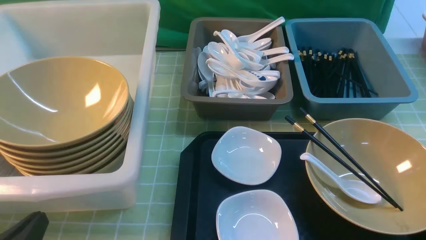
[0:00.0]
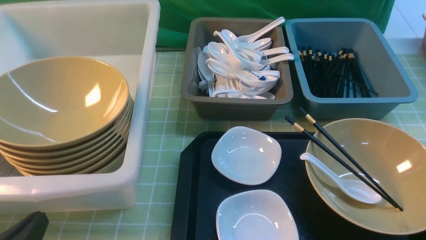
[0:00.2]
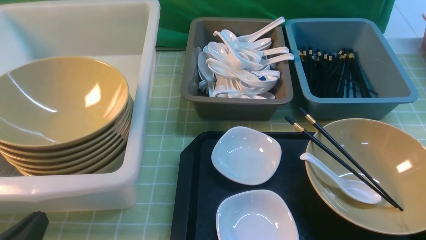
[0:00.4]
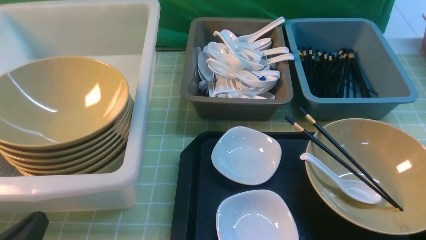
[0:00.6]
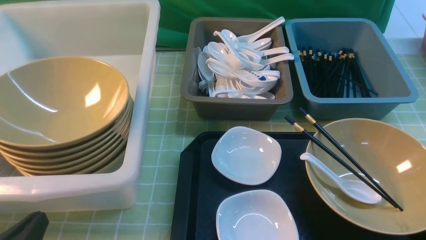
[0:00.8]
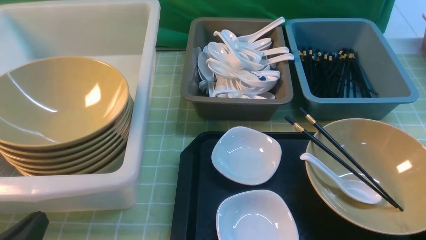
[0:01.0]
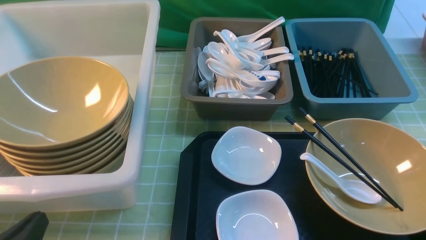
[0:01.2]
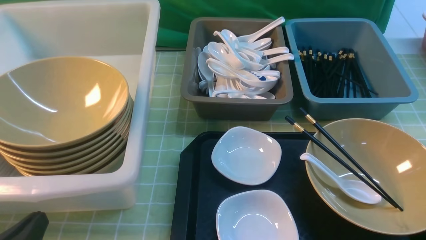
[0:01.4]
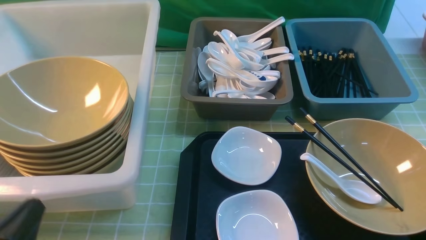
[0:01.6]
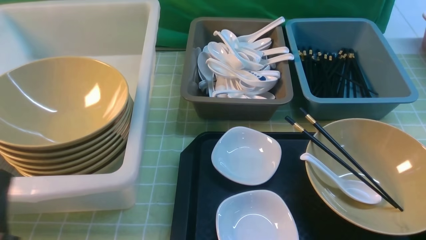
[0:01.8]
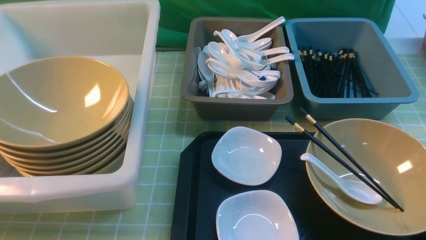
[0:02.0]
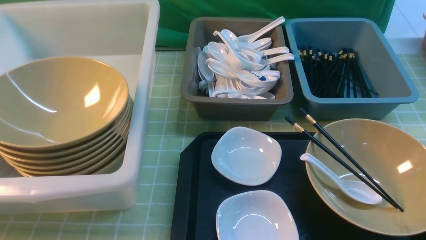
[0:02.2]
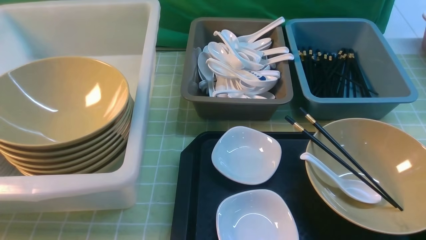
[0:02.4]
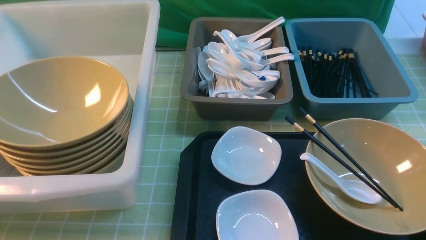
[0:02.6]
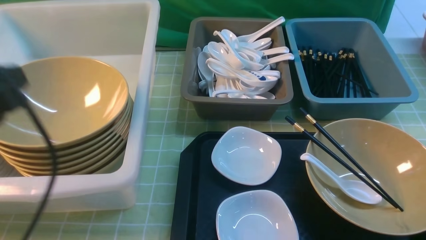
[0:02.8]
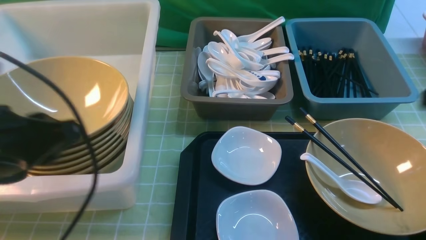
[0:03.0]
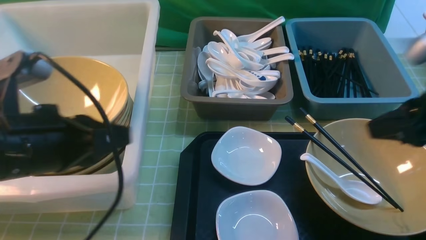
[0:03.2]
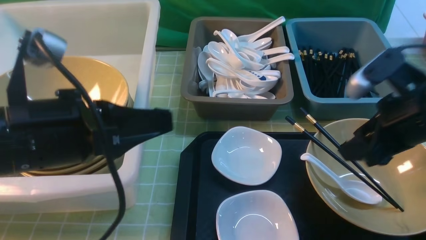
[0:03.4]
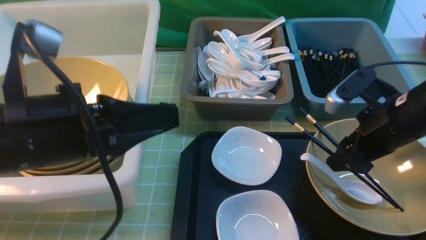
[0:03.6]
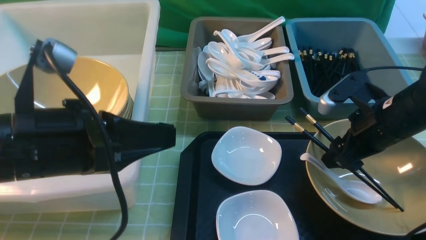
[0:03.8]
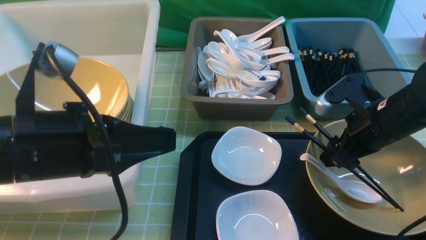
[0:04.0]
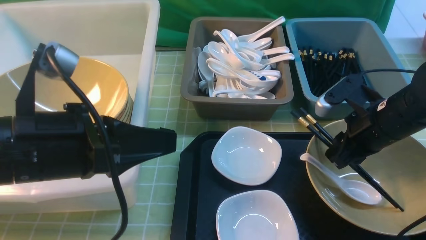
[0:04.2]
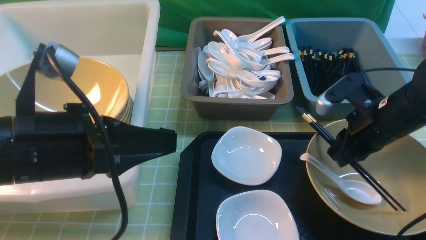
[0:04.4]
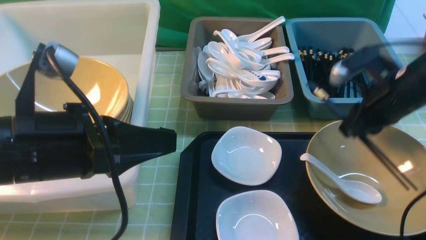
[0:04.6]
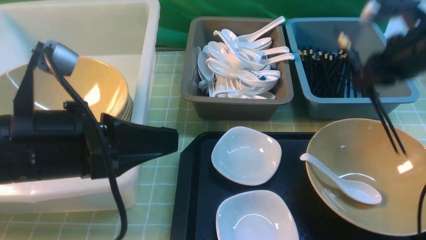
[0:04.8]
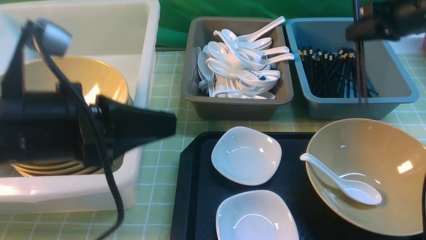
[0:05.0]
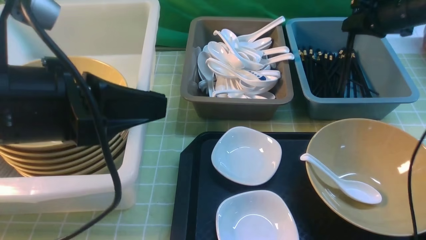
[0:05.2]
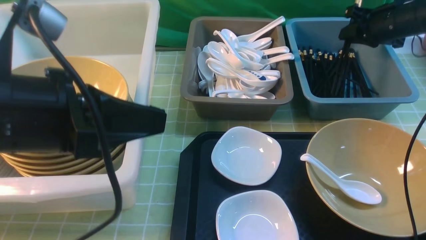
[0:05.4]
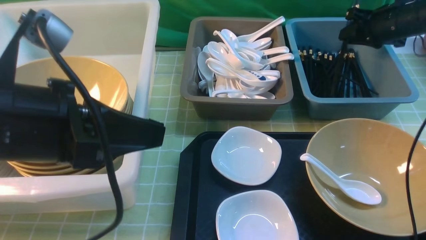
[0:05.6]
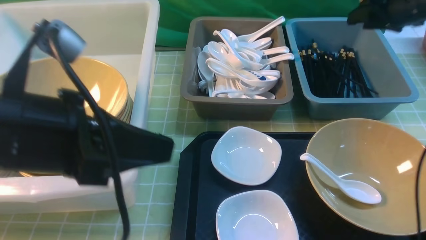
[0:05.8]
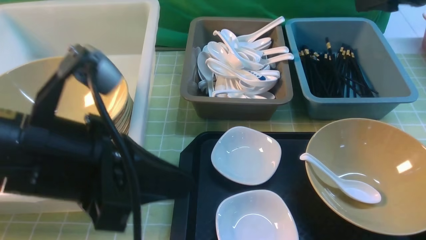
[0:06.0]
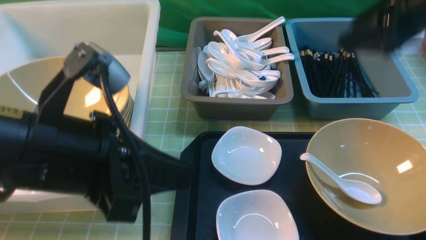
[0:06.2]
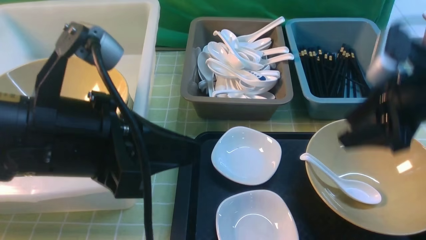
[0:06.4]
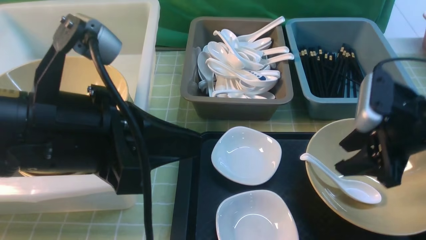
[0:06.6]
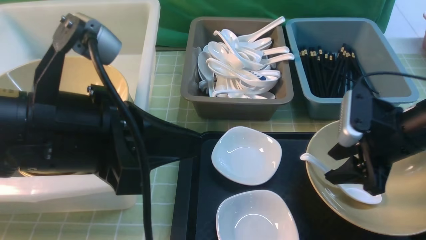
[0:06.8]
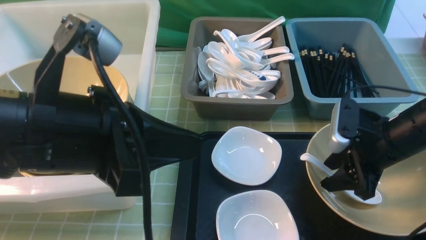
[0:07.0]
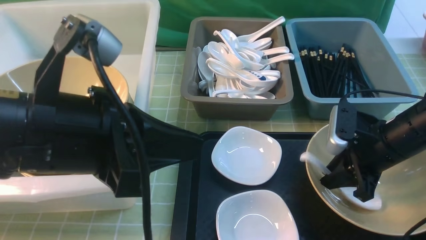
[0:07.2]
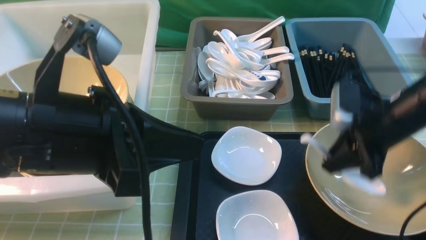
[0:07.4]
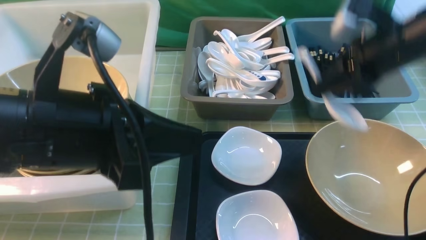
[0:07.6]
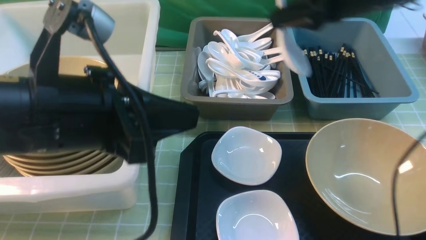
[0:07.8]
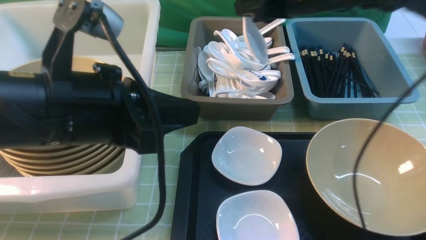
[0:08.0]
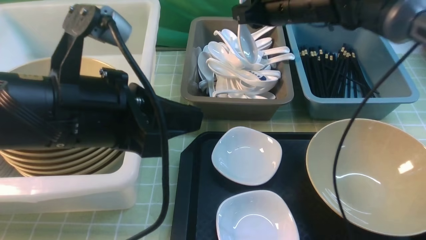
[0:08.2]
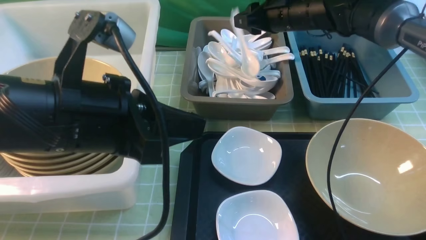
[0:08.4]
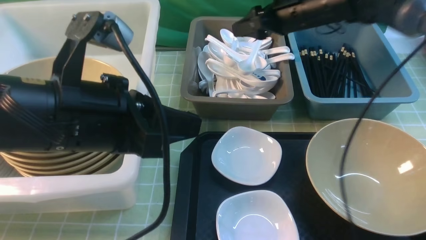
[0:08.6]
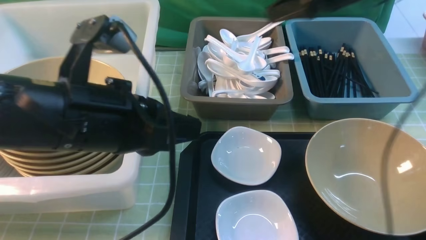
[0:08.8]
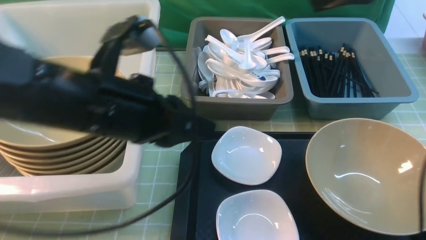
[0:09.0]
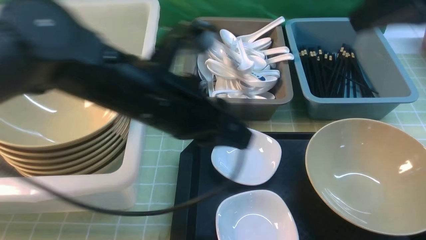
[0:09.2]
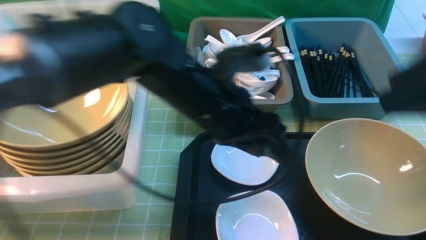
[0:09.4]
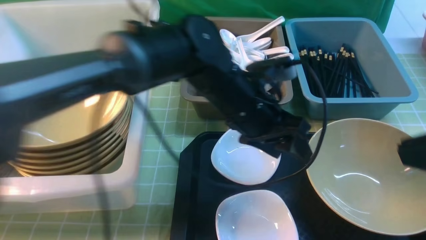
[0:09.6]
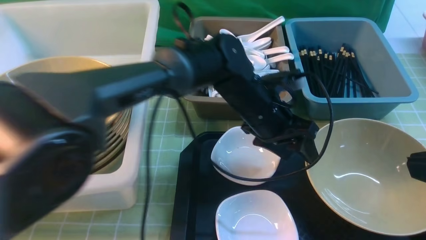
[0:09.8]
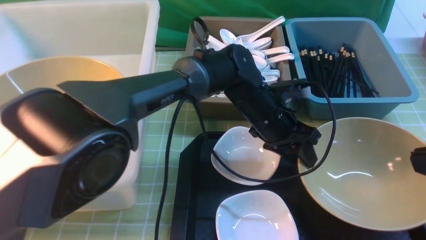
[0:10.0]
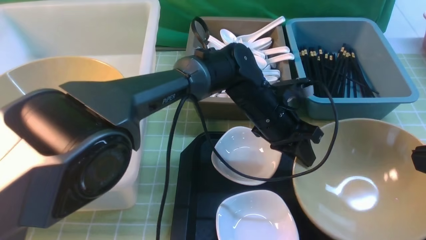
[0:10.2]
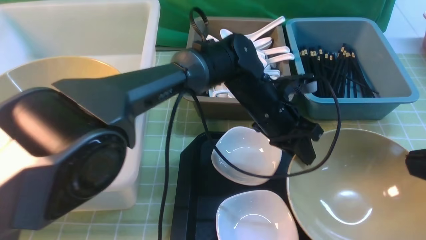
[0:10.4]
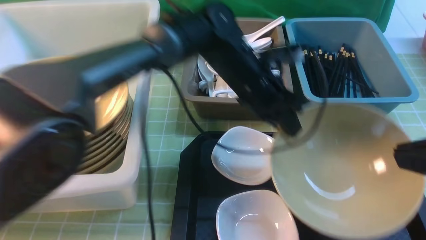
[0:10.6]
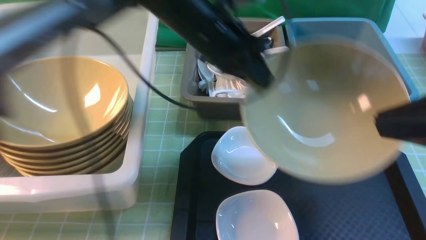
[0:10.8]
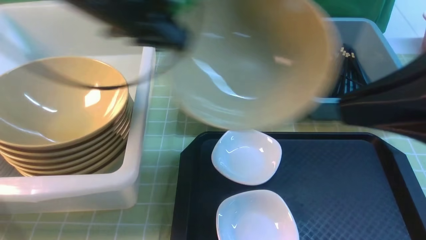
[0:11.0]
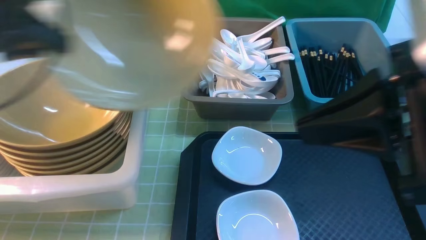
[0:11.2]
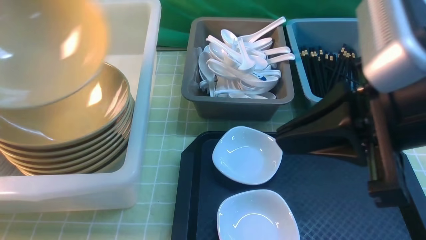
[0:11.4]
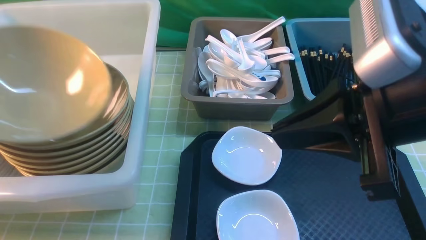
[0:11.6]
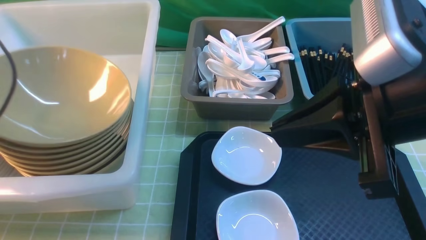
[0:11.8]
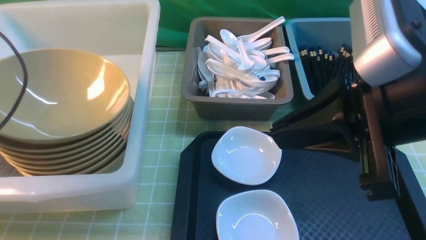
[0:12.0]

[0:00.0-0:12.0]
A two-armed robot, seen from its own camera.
Task of the whole recording: on green table put chopsticks spoon bowls plates into blue grey white boxes.
Step, 0:00.0 to 0:04.4: use the right arm to grab the chopsticks.
Step, 0:04.6 to 0:05.8: use the right arm to put the chopsticks into the small storage box on the right.
Step, 0:06.0 to 0:07.4: use the right arm to grab the soup spoon in the middle.
Step, 0:07.8 to 0:08.8: use the right arm to put the soup spoon into the small storage box in the middle.
Step, 0:09.0 to 0:10.6: use the left arm to grab the yellow noodle bowl on the left.
0:01.6 to 0:03.0: The grippers both shift upward and forward by about 20 cm.
0:03.0 to 0:04.4: The right gripper heads downward, forward and to the left, covering roughly 20 cm, and opens, then closes once more.
0:04.4 to 0:06.0: The right gripper travels upward, forward and to the right by about 15 cm, and opens its fingers.
0:06.0 to 0:07.6: The right gripper moves to the left, approximately 10 cm, reaches about 15 cm downward, then returns, and closes its fingers.
0:07.6 to 0:09.0: The left gripper goes about 5 cm forward; the right gripper goes about 10 cm upward, travels forward and back again, some 15 cm each way, and opens its fingers.
0:09.0 to 0:10.4: The right gripper heads backward, covering approximately 20 cm, and closes up; the left gripper shifts about 25 cm to the right, forward and downward, and opens and closes again.
0:10.4 to 0:12.0: The right gripper is displaced to the left and forward by approximately 10 cm. Meanwhile the left gripper heads to the left, covering roughly 40 cm.

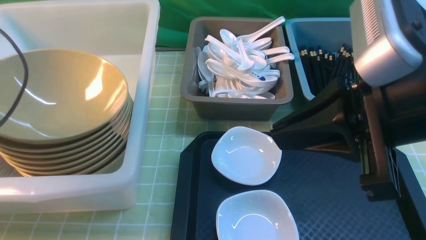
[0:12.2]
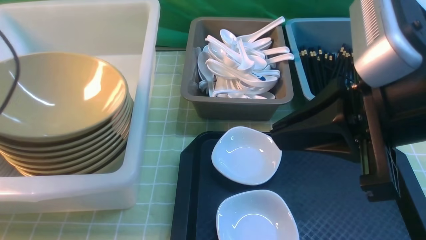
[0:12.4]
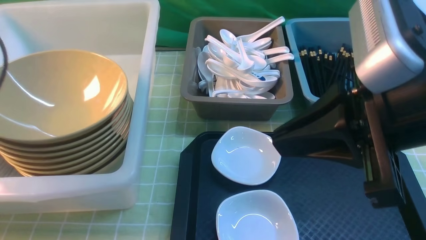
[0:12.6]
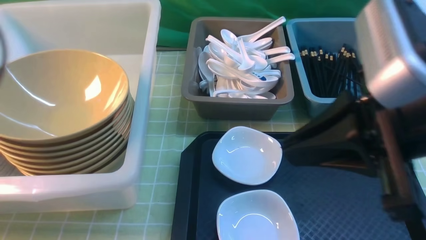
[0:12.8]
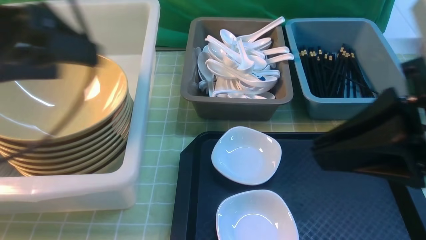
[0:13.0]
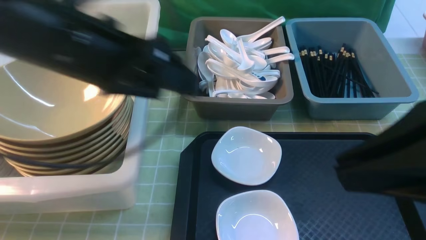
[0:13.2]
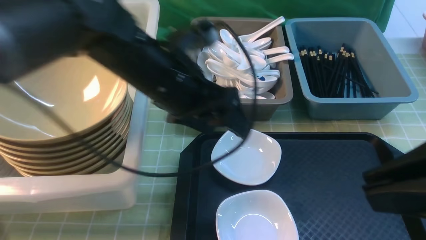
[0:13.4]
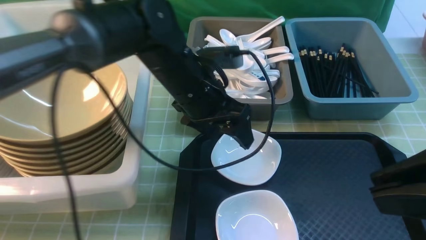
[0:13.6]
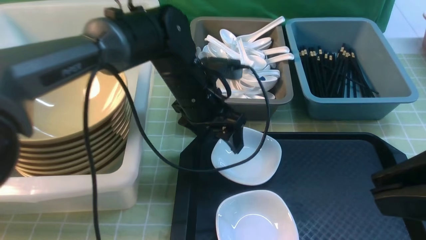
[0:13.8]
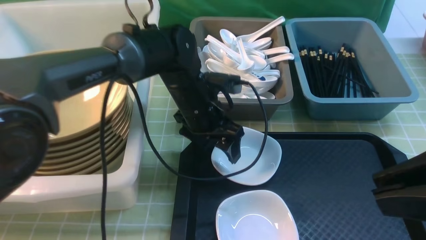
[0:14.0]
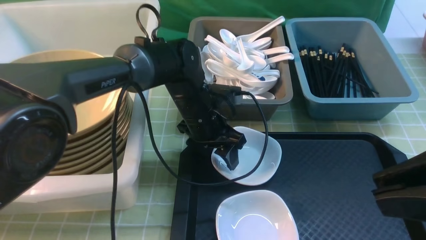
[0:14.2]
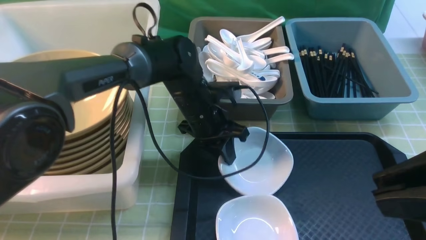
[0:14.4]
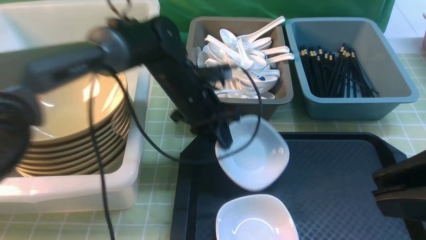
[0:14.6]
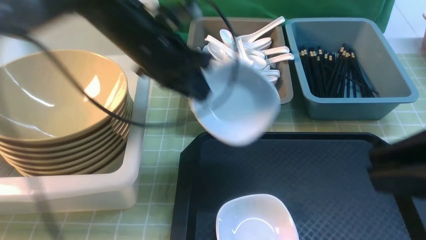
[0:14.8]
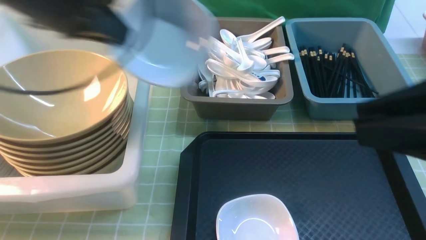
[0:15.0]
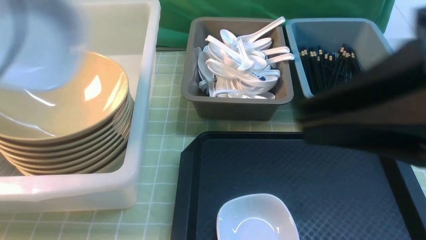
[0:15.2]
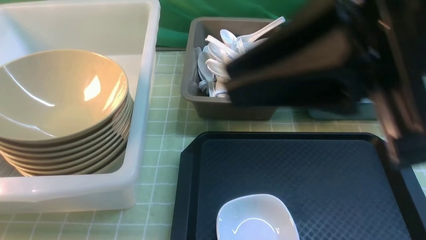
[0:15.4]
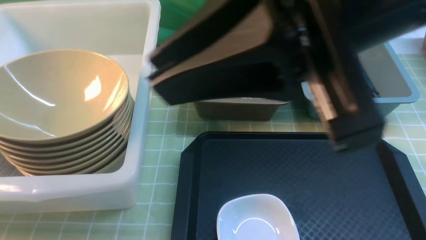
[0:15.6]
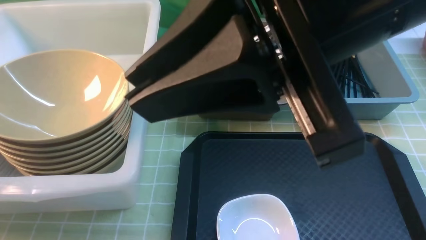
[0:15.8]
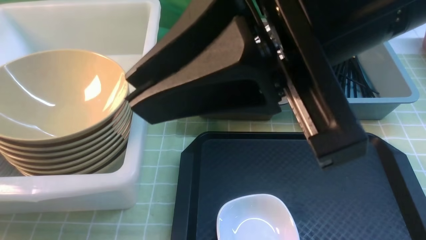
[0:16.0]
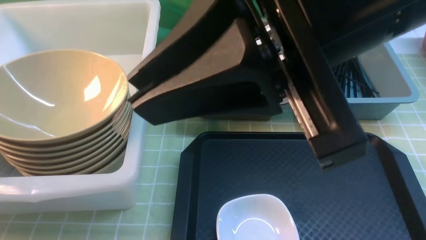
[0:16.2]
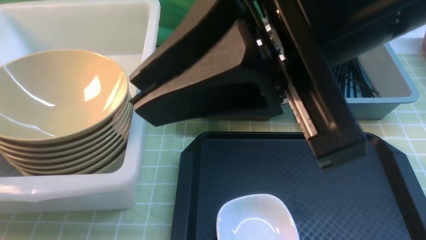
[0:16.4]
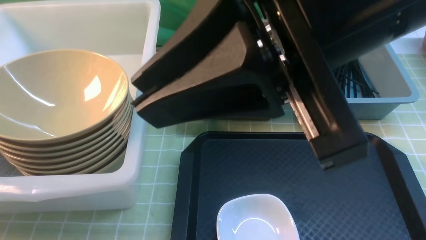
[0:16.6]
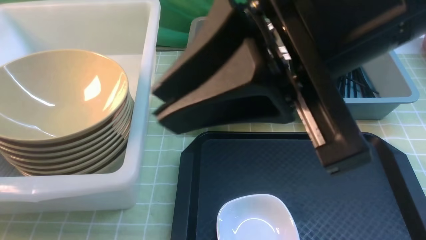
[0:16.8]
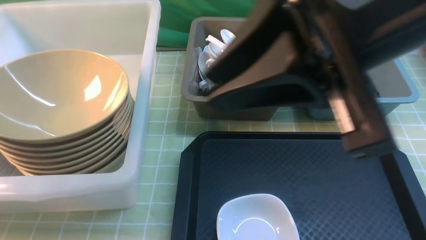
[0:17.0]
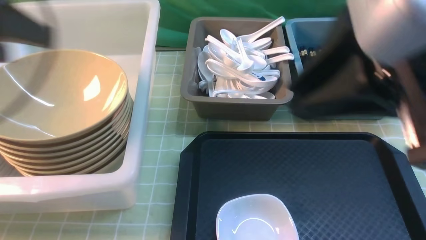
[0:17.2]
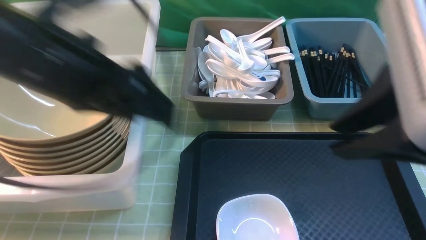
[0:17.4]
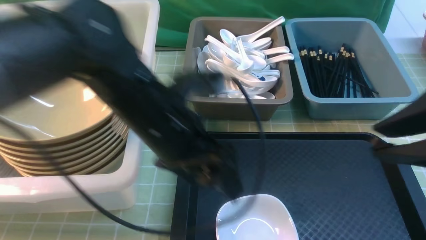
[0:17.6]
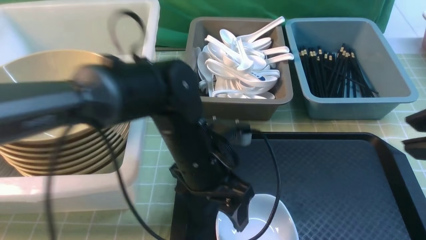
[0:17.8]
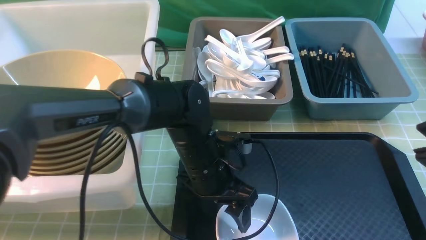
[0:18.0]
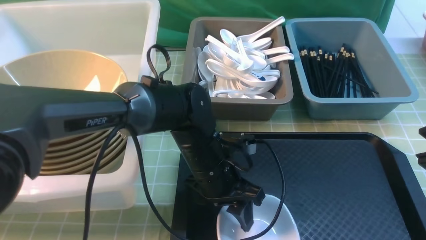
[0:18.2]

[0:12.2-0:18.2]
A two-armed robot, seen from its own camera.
Task of the whole recording: on green table put chopsticks spoon bowls plates into blue grey white boxes.
Step, 0:12.8 to 0:14.8: use the left arm to grab the plate.
Step, 0:15.0 to 0:15.8: use the left arm to put the plate into the large storage box on the left.
0:12.2 to 0:13.8: The left gripper heads to the right, covering approximately 30 cm, and opens, while the right gripper moves backward, roughly 10 cm.
0:13.8 to 0:15.2: The right gripper shifts by about 5 cm. The left gripper heads to the left, upward and backward, covering some 35 cm, and closes up.
0:15.2 to 0:16.6: The right gripper heads to the left, covering roughly 10 cm, while the left gripper shifts about 15 cm to the left and downward, and opens.
0:16.6 to 0:18.2: The right gripper heads to the right and backward, covering some 15 cm, while the left gripper shifts approximately 40 cm to the right.
